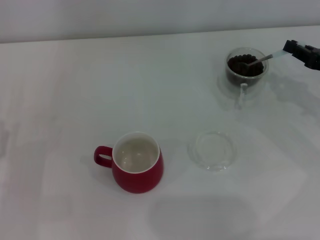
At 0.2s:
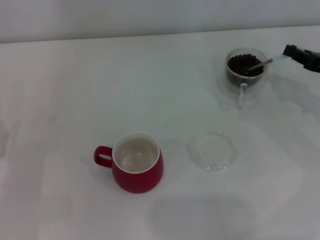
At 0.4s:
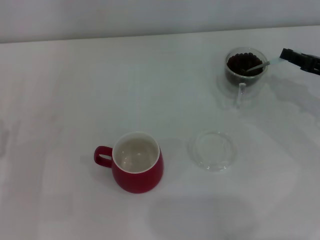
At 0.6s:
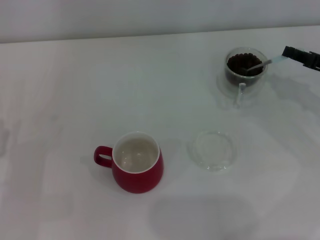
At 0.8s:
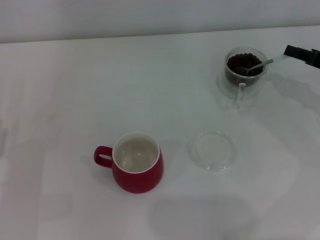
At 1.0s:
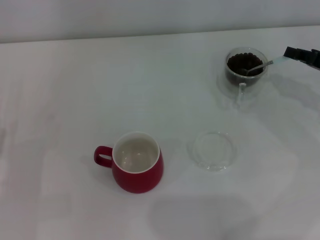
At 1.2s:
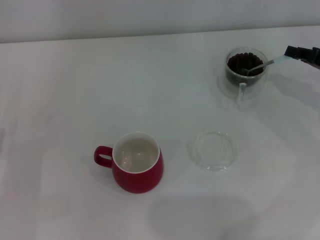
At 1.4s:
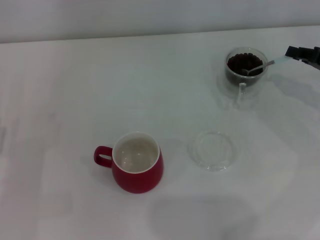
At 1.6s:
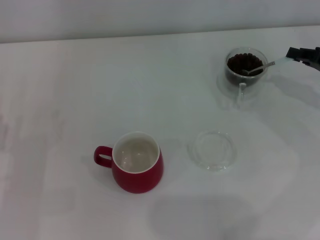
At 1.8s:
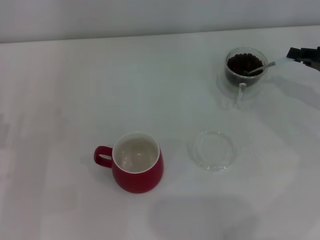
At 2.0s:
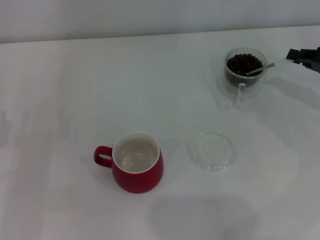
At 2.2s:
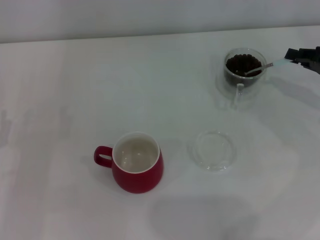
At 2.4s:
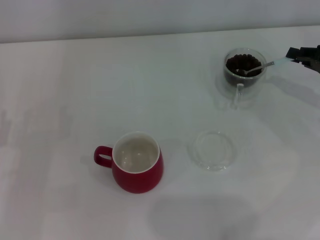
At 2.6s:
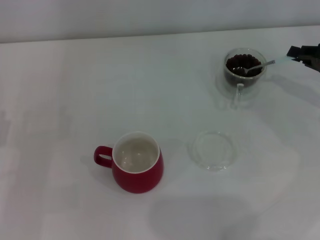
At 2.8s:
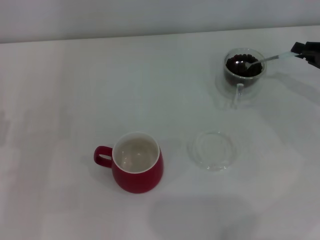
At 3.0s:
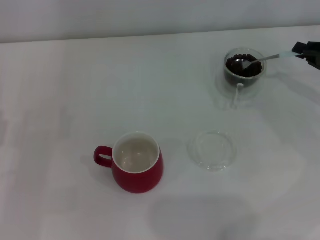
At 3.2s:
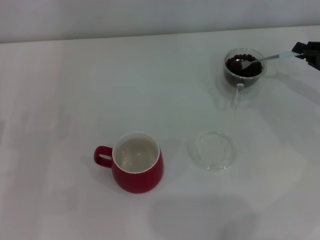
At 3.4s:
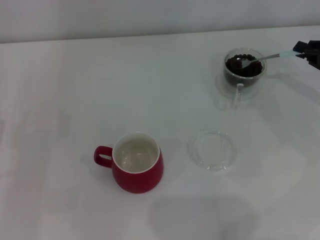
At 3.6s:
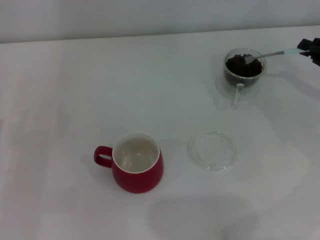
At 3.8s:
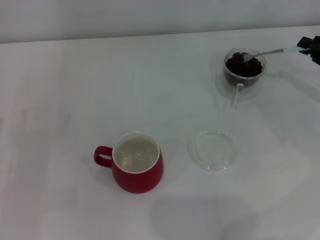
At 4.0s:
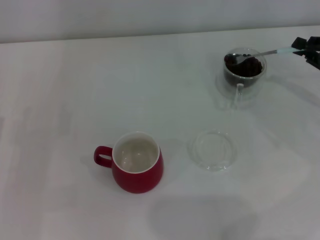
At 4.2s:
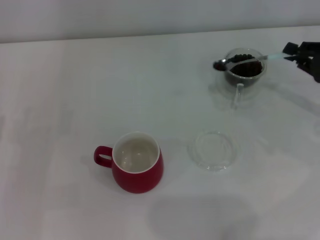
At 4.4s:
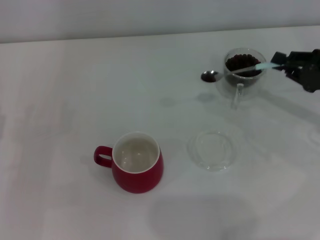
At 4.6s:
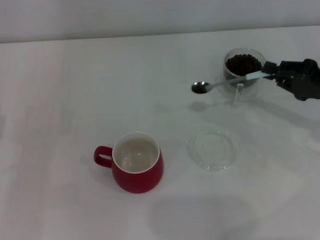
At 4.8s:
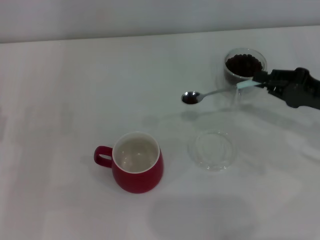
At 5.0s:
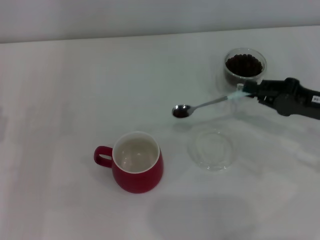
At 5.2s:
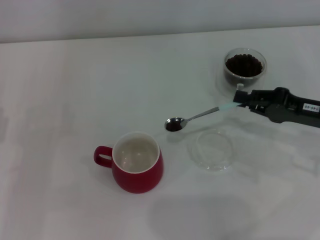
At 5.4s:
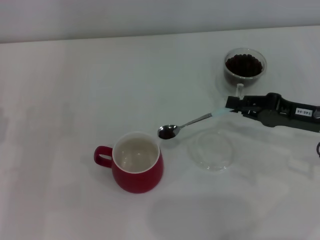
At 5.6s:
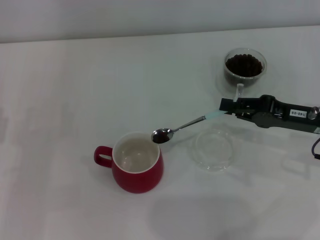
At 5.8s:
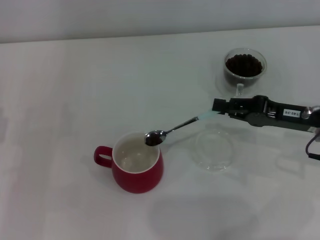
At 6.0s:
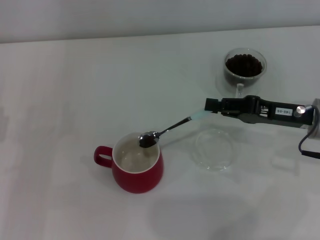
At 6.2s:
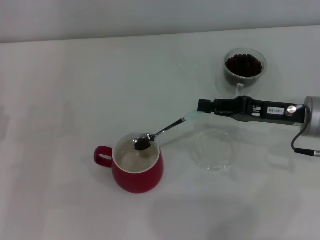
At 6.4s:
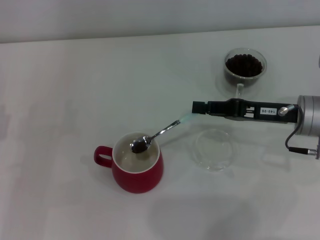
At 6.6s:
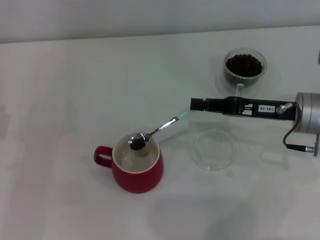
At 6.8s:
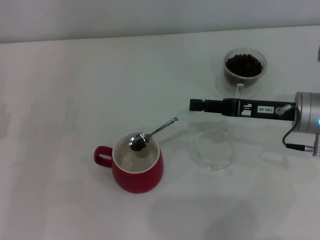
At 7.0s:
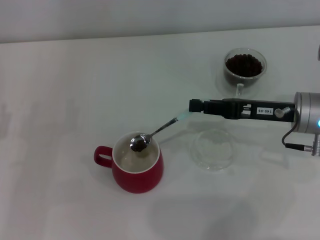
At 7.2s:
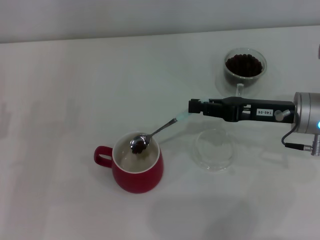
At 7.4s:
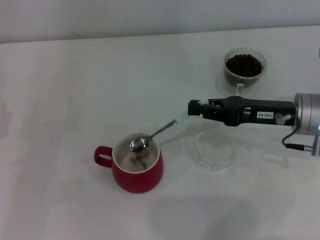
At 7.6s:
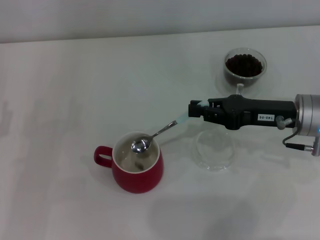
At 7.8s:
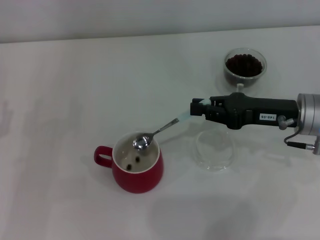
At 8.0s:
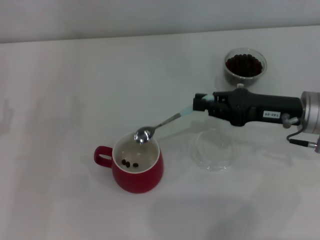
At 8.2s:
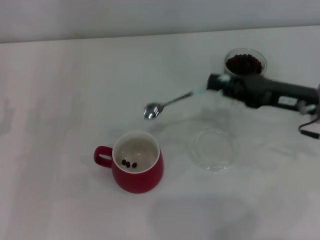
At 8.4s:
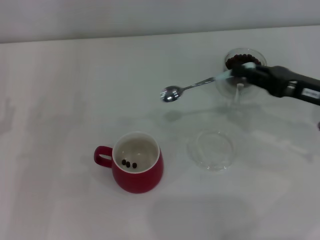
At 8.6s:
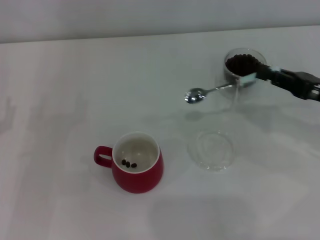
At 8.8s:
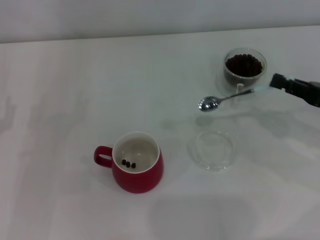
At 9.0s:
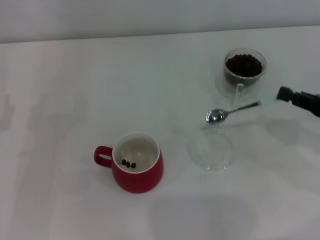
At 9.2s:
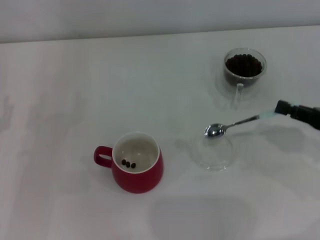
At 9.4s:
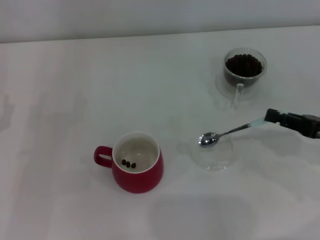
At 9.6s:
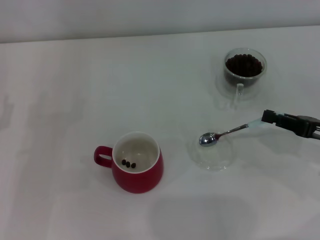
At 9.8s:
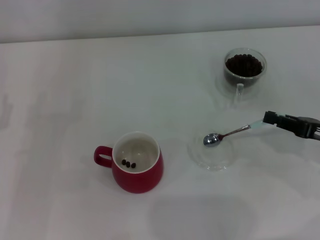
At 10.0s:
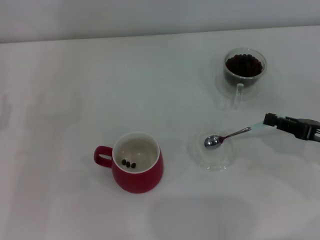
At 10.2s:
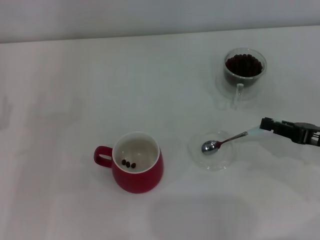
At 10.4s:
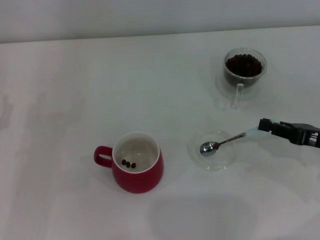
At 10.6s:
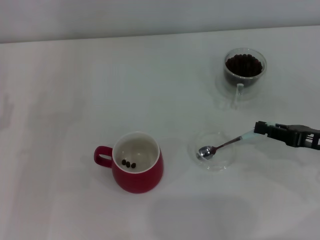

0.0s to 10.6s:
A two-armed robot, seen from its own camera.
Task of the whole recording: Use a blue spoon to take out the coffee beans from the glass and pour them into the red cup.
Step, 0.0s to 8.0s: Scoop a spoonful of beans into the cup with the right gripper.
1.6s to 3.0s: The grippers stay close to where they were, moving slightly.
3.0s to 4.6s: The grippers make only small movements.
4.6s to 6.0s: The right gripper shifts roughly 5 cm to the left.
7.6s to 9.0s: The right gripper travels to the right and backward by some 10 cm.
9.0s to 10.6s: The grippers stay close to where they were, moving slightly.

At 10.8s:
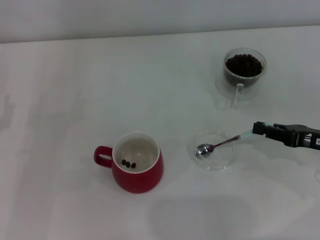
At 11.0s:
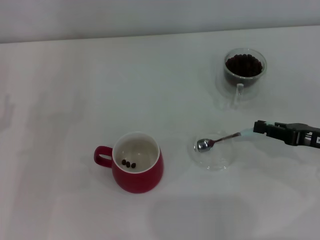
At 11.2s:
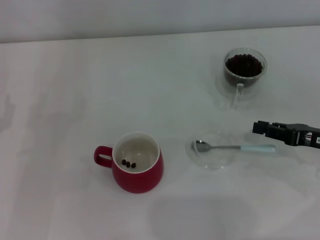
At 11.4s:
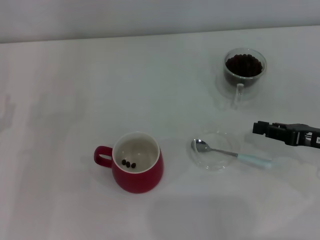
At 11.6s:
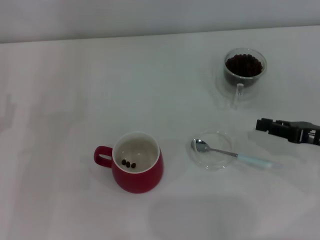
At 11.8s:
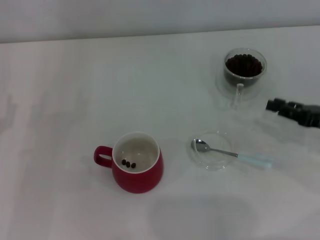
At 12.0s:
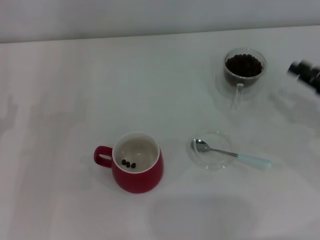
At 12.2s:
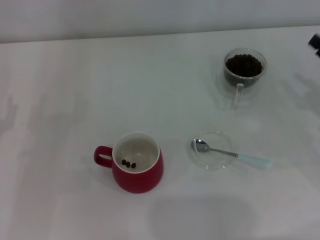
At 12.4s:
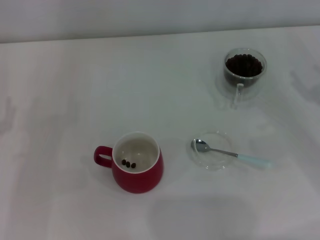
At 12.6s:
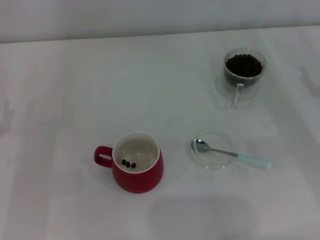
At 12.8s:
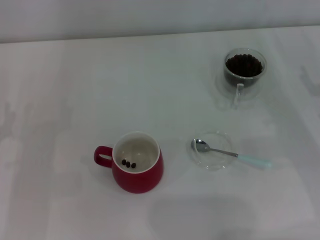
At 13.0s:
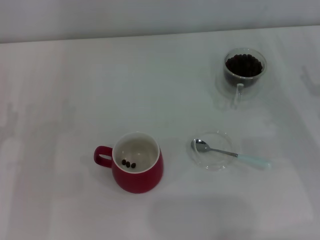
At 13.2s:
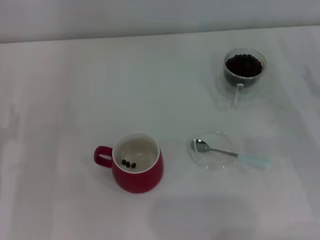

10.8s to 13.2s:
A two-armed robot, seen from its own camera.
Task of the whole recording: Use a blue spoon to take out the coffee beans from the glass and pour them into the red cup.
12.0s to 13.2s: The right gripper opens its fingers.

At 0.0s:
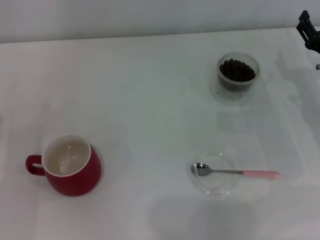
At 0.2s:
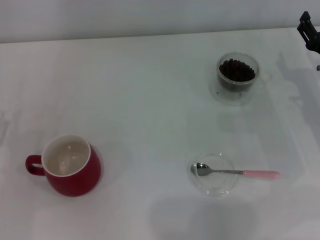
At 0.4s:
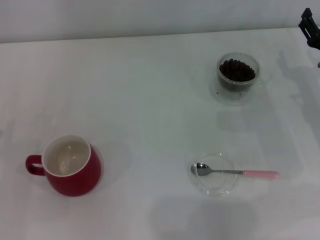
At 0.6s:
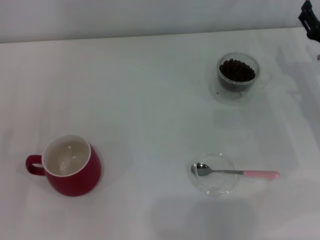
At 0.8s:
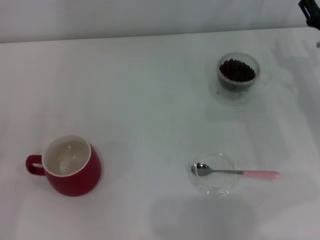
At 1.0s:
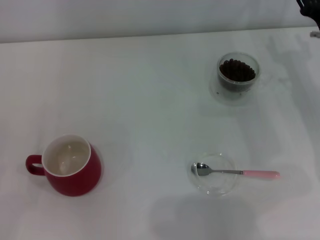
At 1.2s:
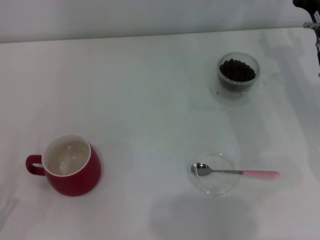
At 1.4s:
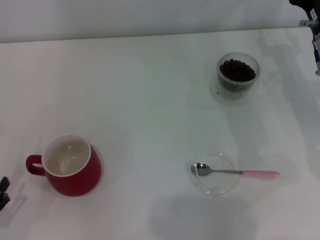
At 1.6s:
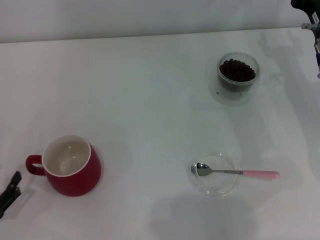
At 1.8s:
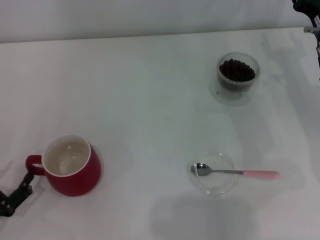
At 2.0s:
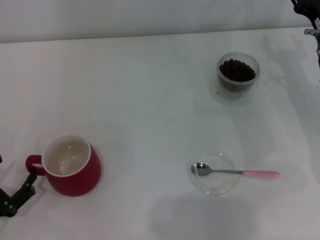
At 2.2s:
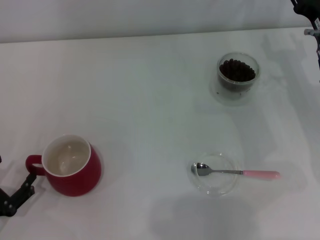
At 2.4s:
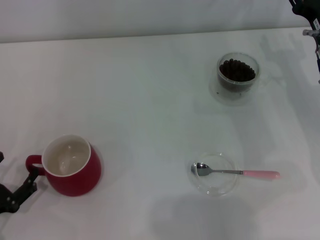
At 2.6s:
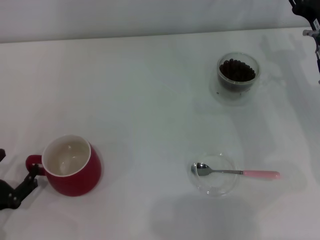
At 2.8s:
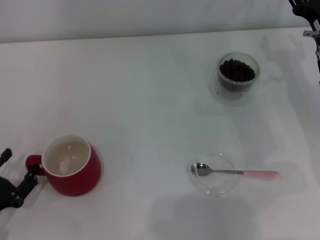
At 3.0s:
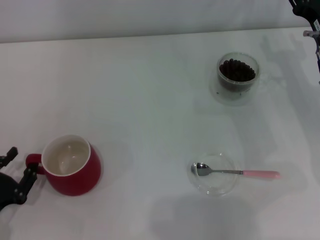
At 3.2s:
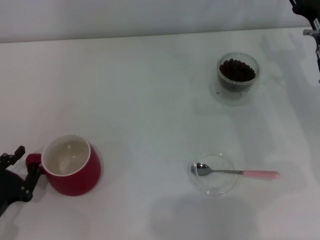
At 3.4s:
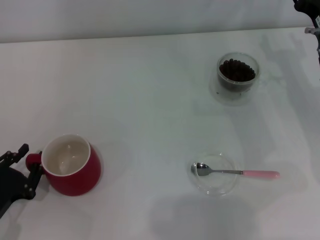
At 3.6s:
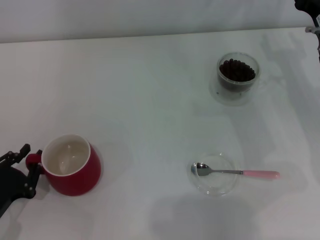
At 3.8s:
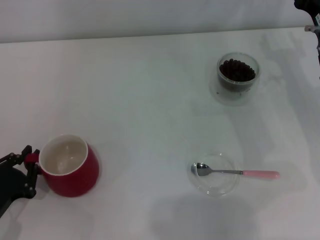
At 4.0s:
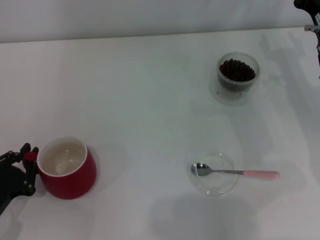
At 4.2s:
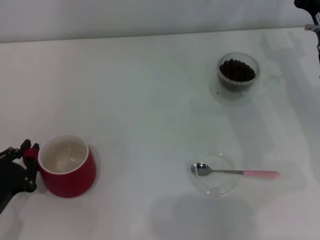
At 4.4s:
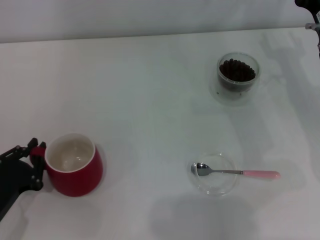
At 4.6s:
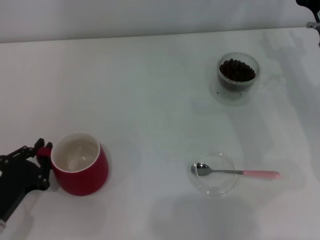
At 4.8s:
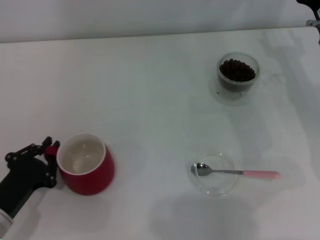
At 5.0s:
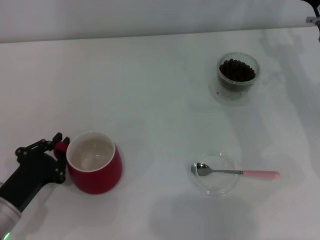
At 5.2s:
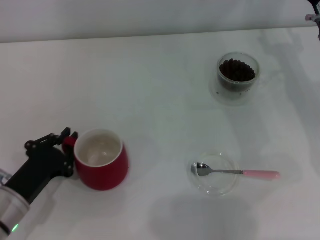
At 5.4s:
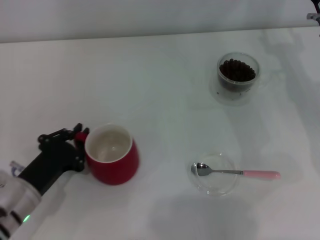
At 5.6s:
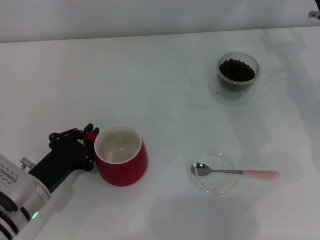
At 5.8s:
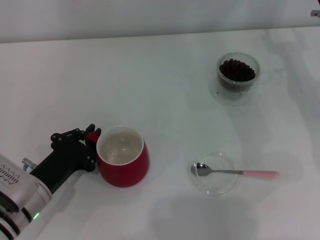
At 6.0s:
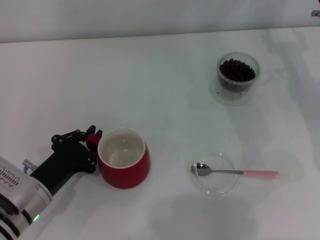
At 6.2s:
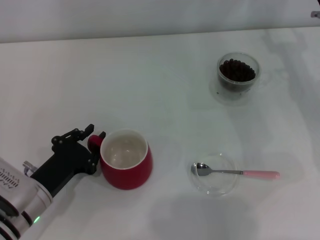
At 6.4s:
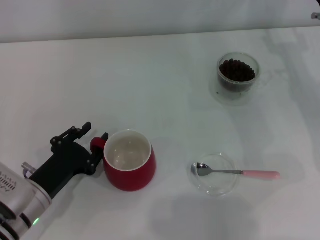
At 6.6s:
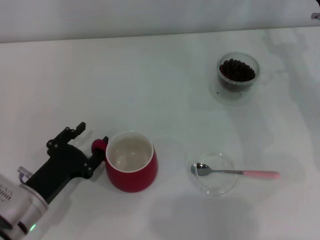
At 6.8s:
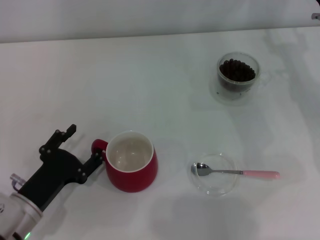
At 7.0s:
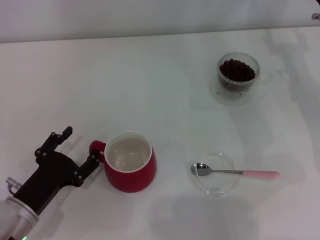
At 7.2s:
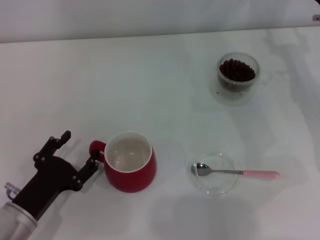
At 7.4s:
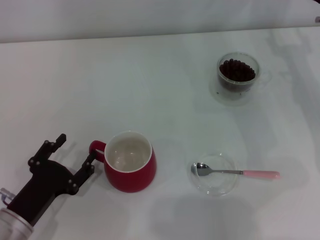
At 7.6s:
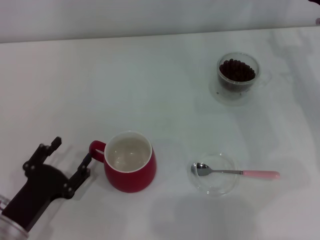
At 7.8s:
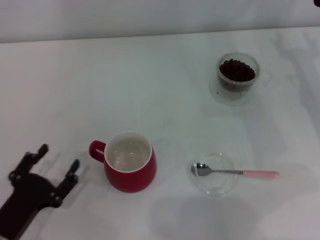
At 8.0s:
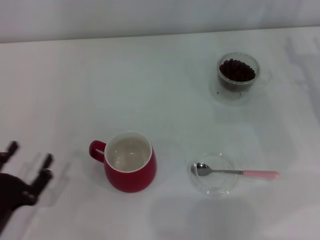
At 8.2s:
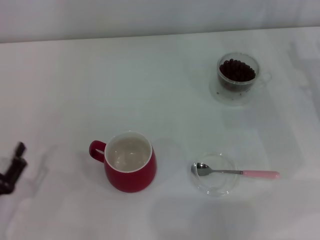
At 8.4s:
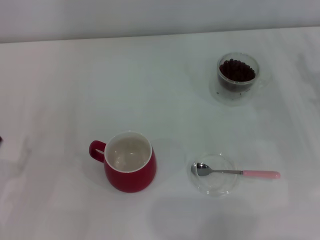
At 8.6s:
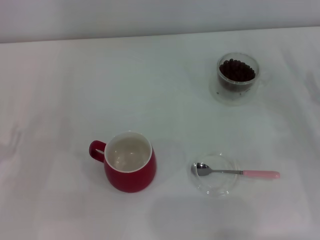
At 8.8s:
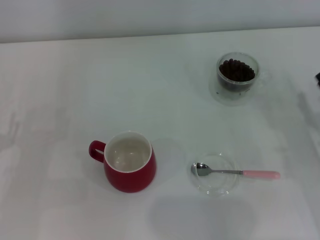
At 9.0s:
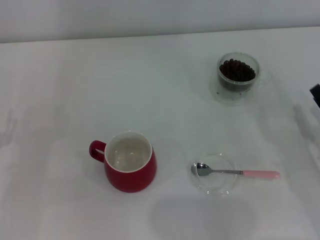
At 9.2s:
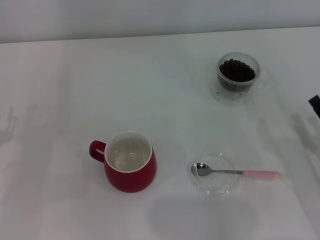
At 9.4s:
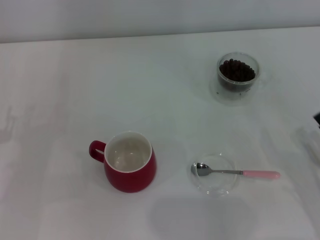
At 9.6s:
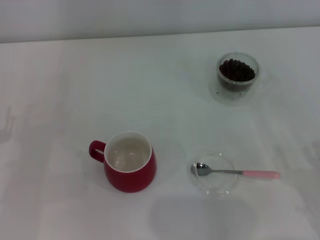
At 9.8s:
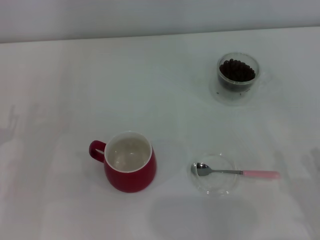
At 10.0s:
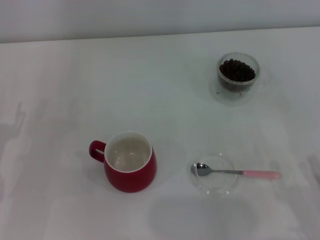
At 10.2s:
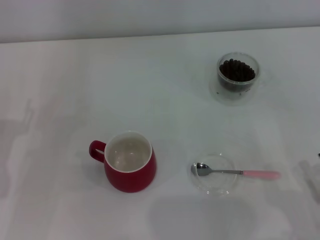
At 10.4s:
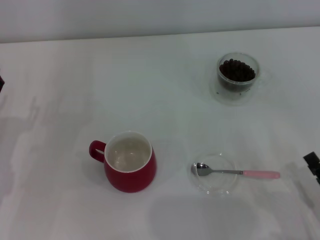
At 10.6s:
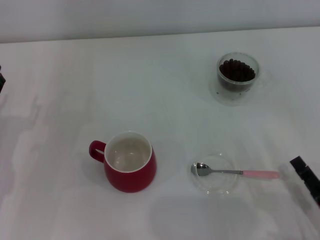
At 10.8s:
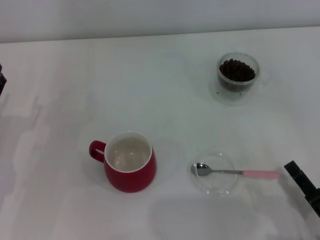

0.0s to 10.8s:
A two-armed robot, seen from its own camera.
Task of the whole recording: Use a pink spoon to take out the coffee beans from the glass and pour them into the red cup.
Step, 0.0s to 7.6s: Move the cup to the center of view with the left gripper.
0.0s to 1.6s: The right gripper moves about 5 cm. Meanwhile the left gripper moves backward, about 10 cm.
1.6s to 3.0s: The grippers make only small movements.
3.0s to 4.6s: The left gripper closes up.
4.6s to 6.2s: The left gripper travels to the right by approximately 5 cm.
6.2s to 7.8s: The left gripper is displaced backward by about 5 cm, and opens up.
7.8s to 9.2s: The left gripper shifts roughly 10 cm forward and to the left. Meanwhile the right gripper shifts approximately 20 cm backward and downward.
9.2s to 10.8s: The right gripper shifts about 10 cm backward and to the left.
